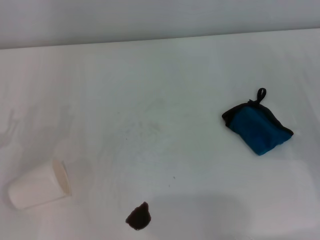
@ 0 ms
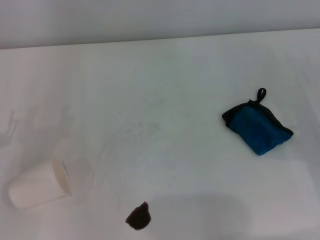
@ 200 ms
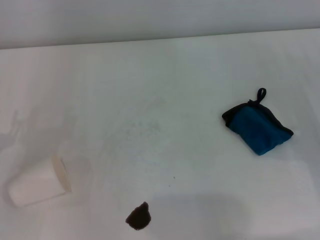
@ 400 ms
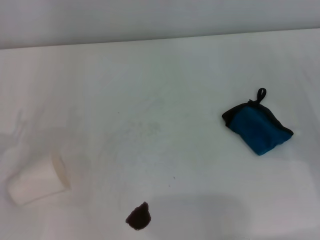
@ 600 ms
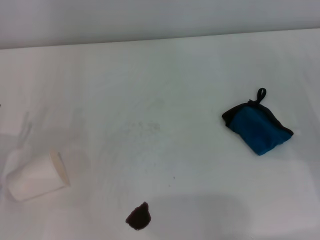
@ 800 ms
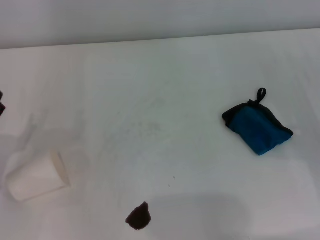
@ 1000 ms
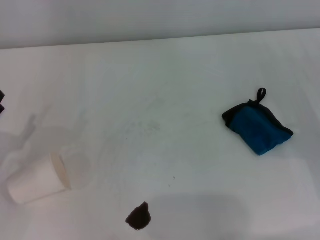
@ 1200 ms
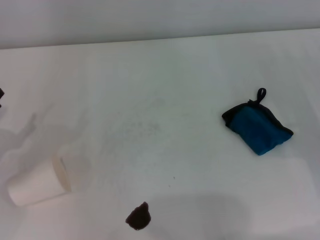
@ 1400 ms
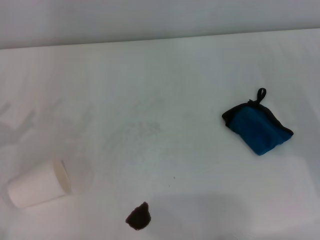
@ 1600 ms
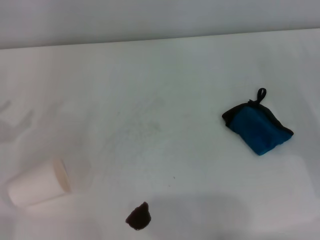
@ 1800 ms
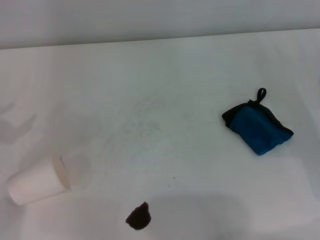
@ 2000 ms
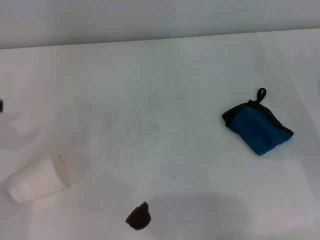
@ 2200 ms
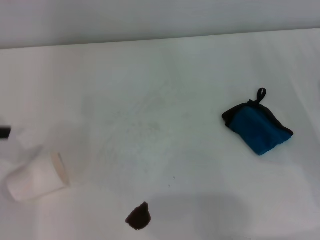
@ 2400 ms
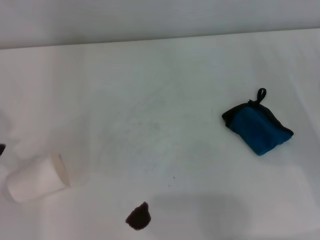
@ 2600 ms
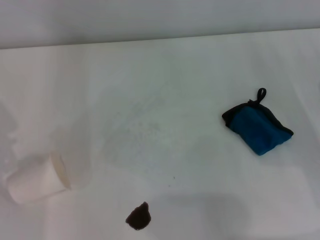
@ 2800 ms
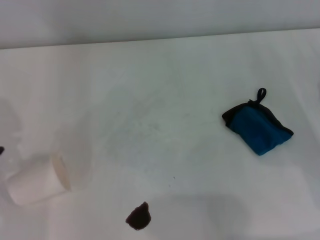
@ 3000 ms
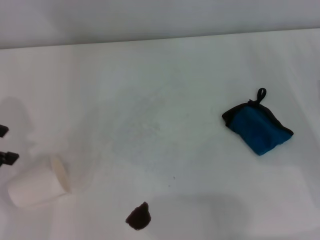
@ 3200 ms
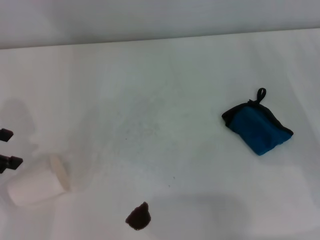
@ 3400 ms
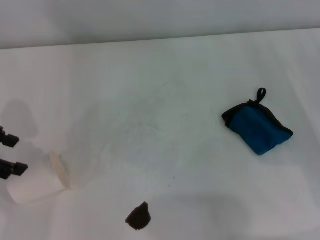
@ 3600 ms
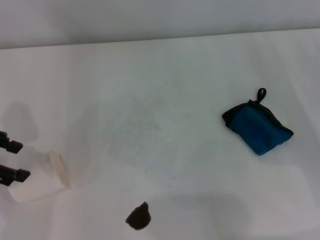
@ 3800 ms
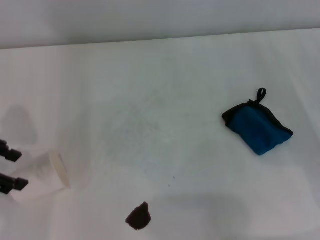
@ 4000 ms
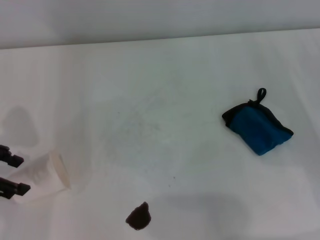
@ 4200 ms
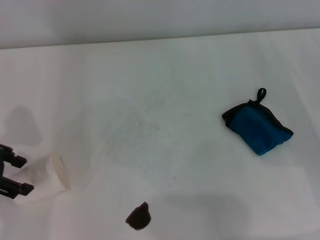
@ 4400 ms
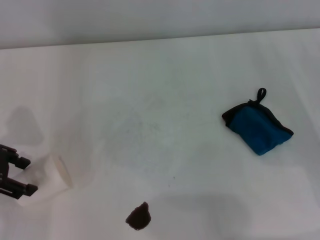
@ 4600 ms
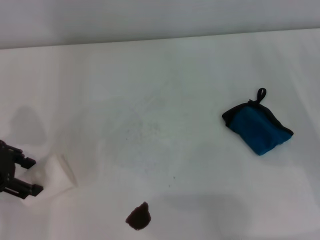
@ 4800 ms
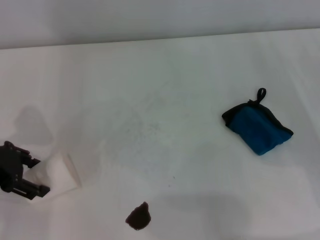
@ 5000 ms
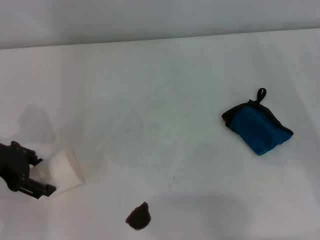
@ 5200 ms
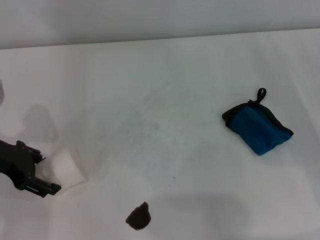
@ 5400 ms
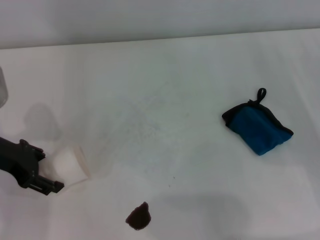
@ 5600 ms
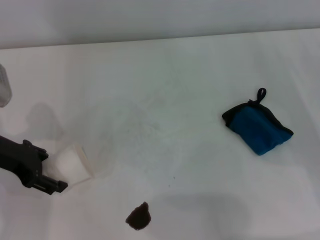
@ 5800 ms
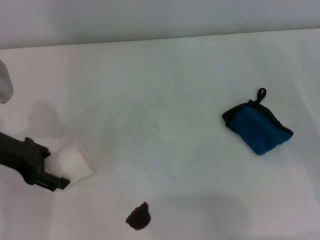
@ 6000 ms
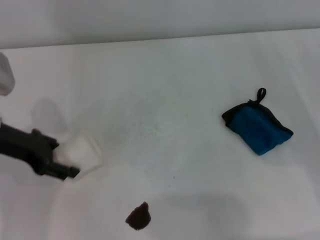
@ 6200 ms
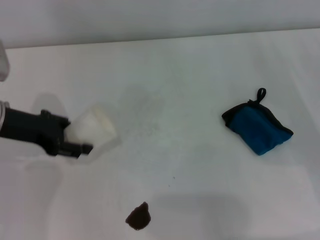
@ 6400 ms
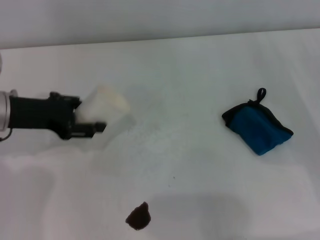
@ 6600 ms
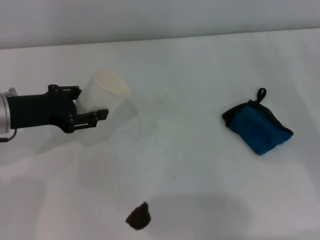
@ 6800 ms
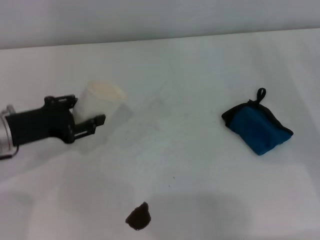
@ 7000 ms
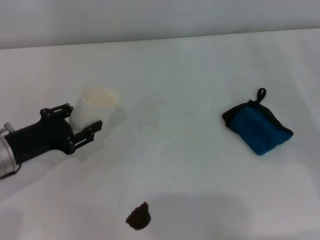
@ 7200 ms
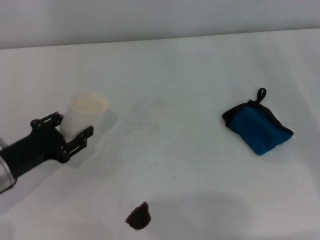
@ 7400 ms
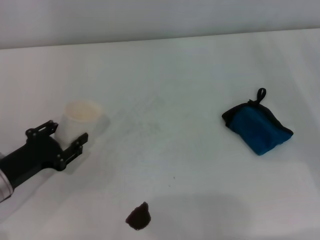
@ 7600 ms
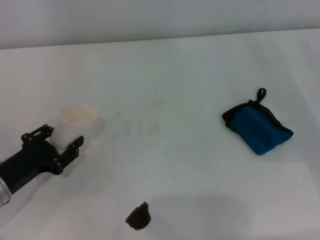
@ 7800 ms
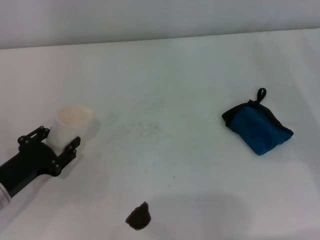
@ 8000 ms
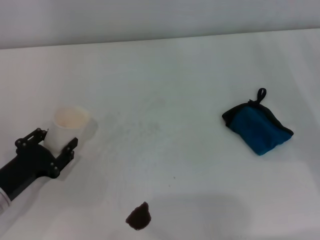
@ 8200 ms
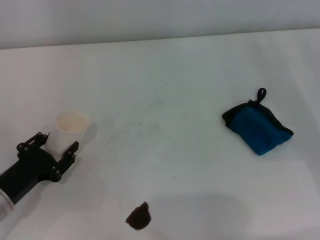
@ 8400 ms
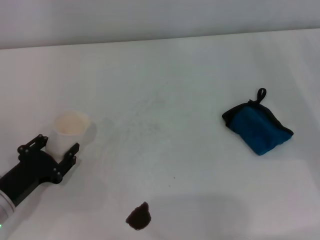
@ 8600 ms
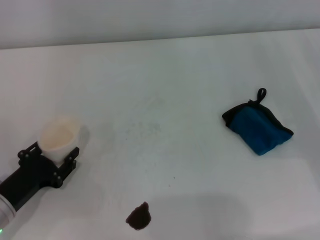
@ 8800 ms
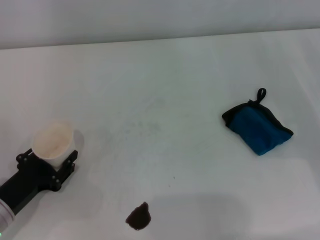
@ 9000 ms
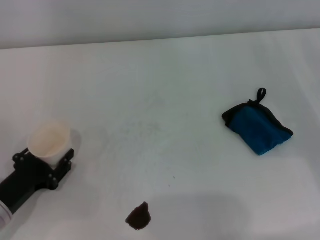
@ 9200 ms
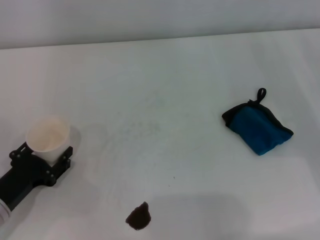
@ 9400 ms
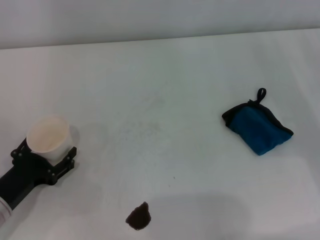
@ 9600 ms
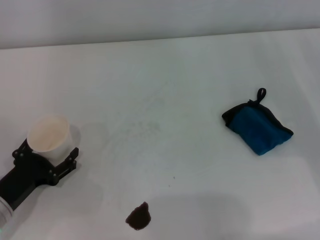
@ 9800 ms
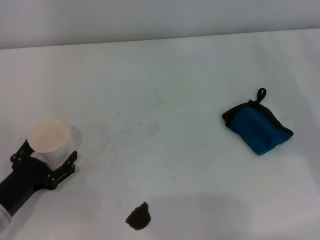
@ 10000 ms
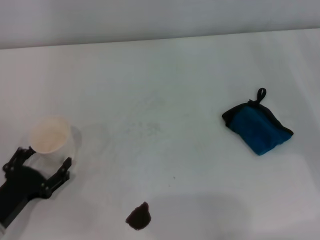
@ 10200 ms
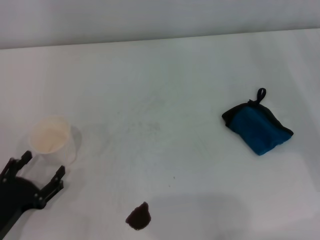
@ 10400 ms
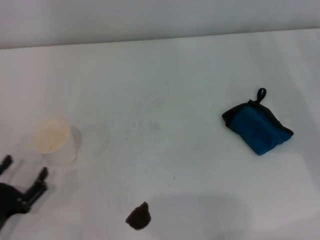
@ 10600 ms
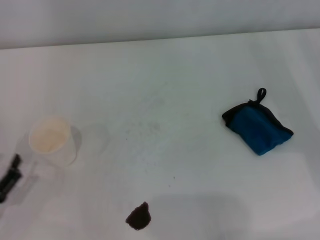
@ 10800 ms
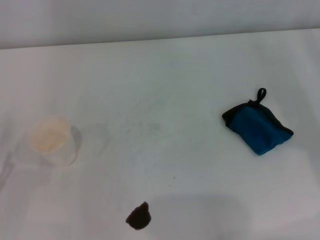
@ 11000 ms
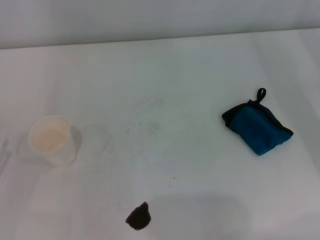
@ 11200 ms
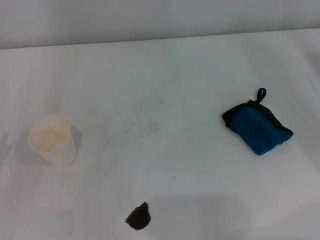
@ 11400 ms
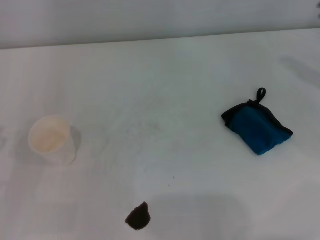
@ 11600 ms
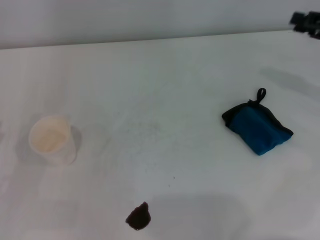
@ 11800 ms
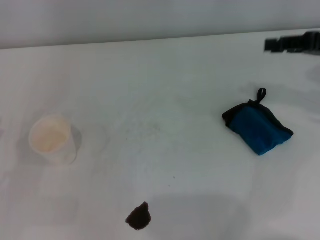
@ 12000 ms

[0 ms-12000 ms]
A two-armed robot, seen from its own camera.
Step, 0 ms to 5800 ms: Grasp the paper cup with the left gripper.
Step, 6000 ms to 9400 ms: Stand the paper cup upright with the left gripper.
3000 ms to 4400 ms: The left gripper is displaced downward by some 5 cm.
4400 ms to 6000 ms: The left gripper shifts by about 5 cm.
6000 ms to 7600 ms: The left gripper shifts roughly 15 cm downward and backward, and closes its fingers.
7600 ms to 9000 ms: The left gripper moves roughly 5 cm.
9000 ms to 10400 ms: The left gripper opens its fingers.
10400 ms to 12000 ms: The left gripper goes approximately 10 cm to the left and upward; the right gripper moves upward and forward, about 15 cm.

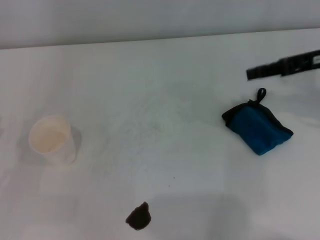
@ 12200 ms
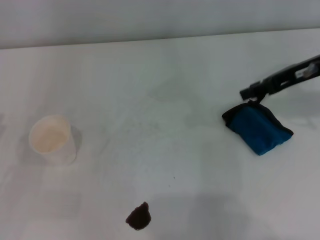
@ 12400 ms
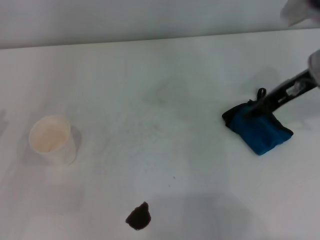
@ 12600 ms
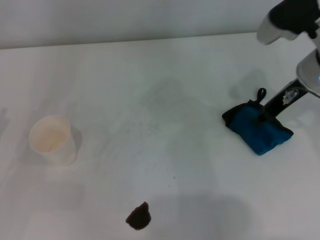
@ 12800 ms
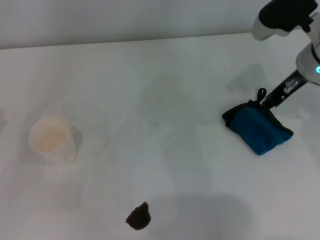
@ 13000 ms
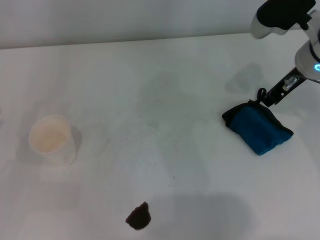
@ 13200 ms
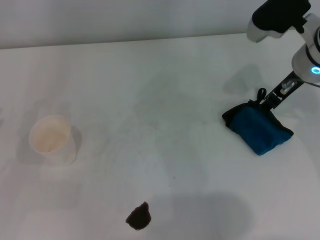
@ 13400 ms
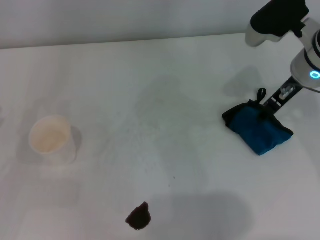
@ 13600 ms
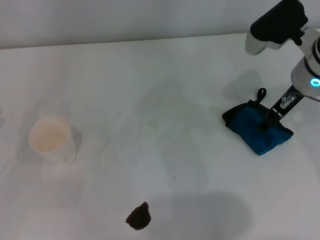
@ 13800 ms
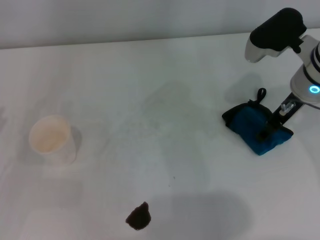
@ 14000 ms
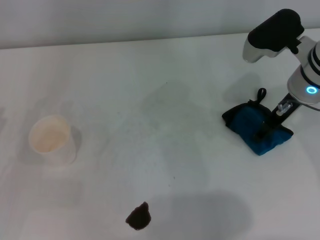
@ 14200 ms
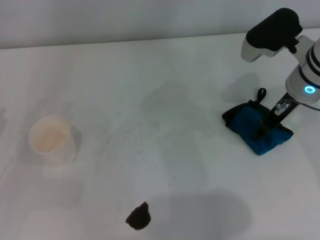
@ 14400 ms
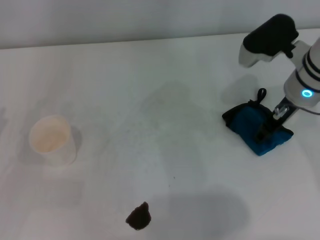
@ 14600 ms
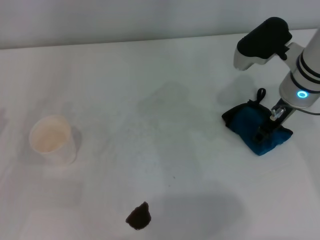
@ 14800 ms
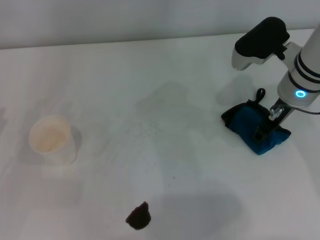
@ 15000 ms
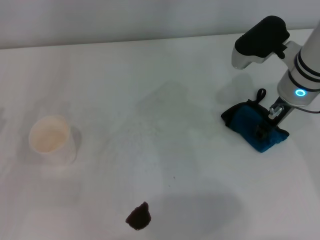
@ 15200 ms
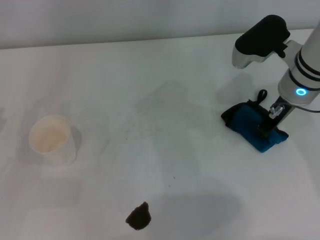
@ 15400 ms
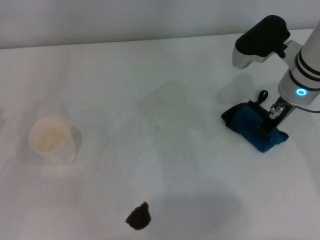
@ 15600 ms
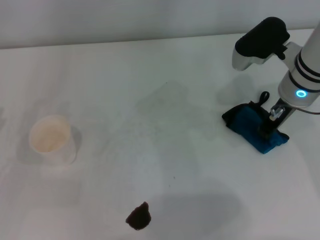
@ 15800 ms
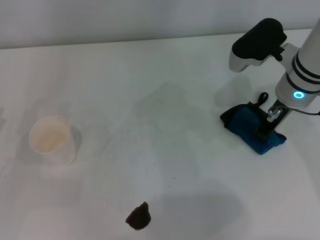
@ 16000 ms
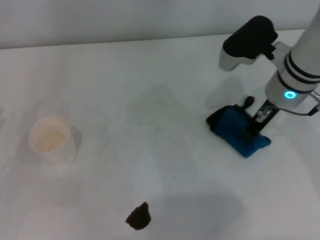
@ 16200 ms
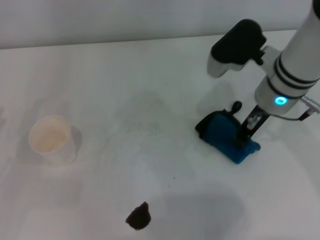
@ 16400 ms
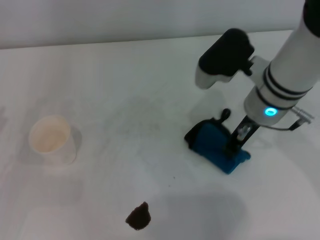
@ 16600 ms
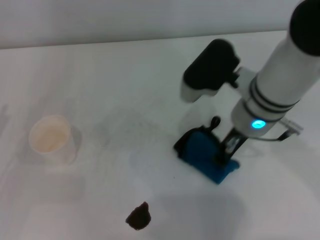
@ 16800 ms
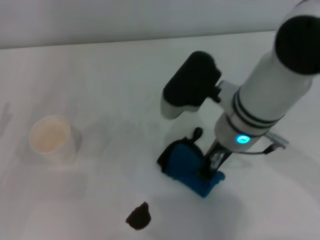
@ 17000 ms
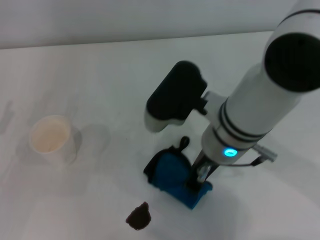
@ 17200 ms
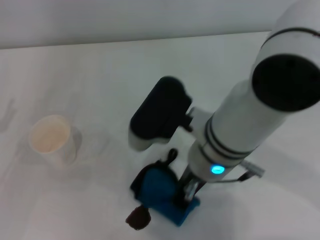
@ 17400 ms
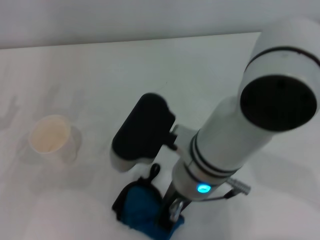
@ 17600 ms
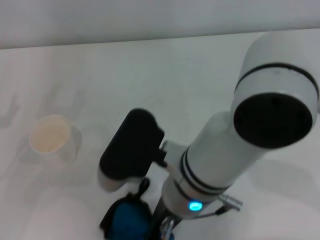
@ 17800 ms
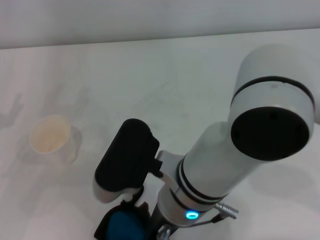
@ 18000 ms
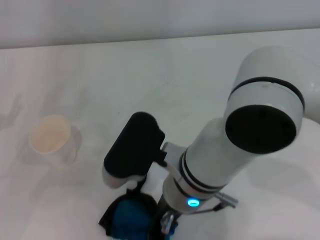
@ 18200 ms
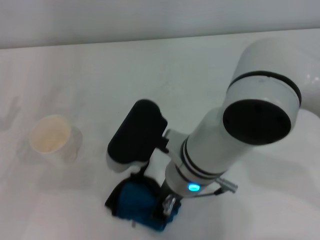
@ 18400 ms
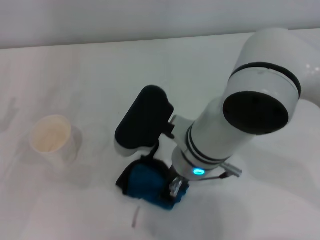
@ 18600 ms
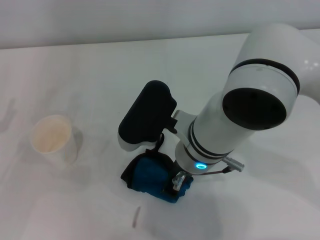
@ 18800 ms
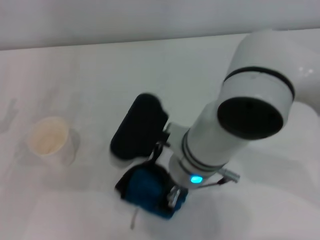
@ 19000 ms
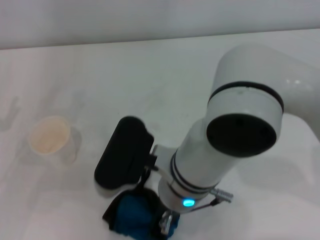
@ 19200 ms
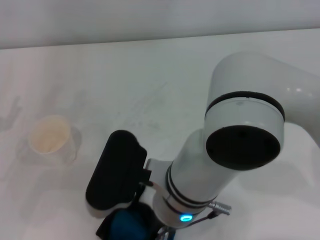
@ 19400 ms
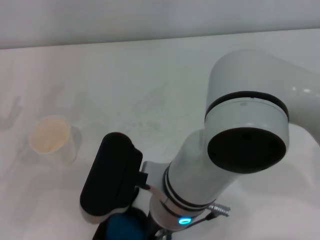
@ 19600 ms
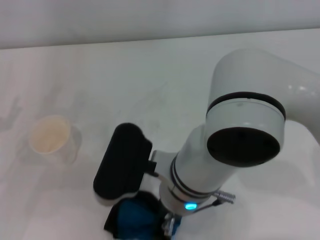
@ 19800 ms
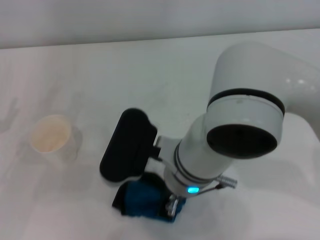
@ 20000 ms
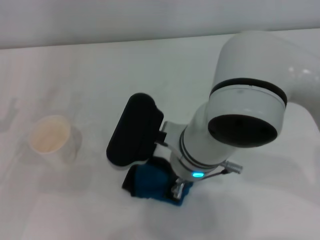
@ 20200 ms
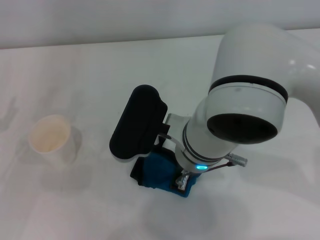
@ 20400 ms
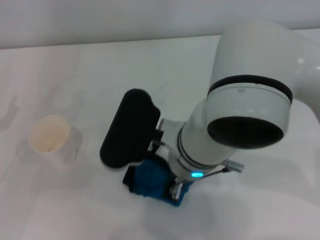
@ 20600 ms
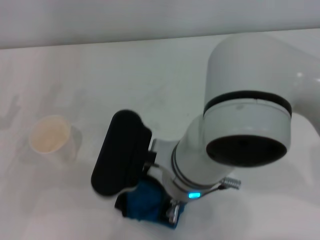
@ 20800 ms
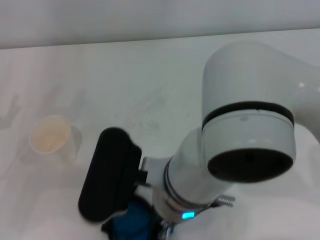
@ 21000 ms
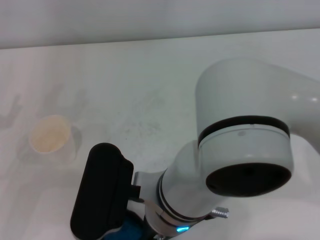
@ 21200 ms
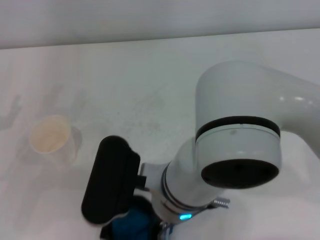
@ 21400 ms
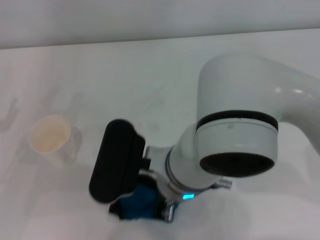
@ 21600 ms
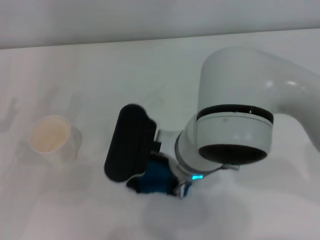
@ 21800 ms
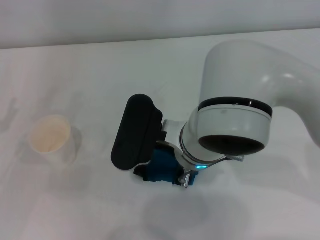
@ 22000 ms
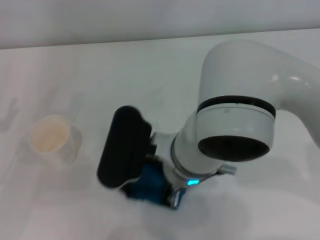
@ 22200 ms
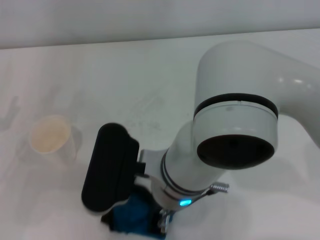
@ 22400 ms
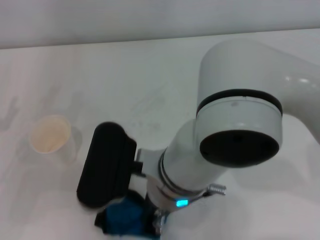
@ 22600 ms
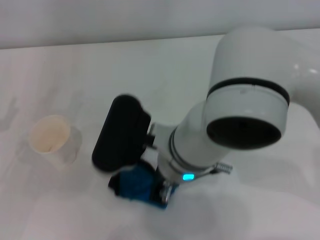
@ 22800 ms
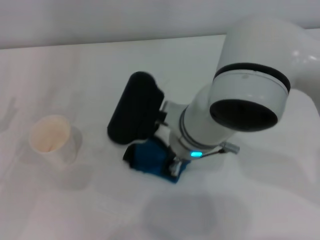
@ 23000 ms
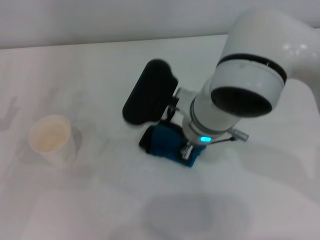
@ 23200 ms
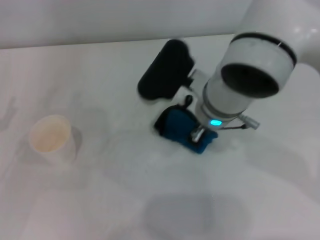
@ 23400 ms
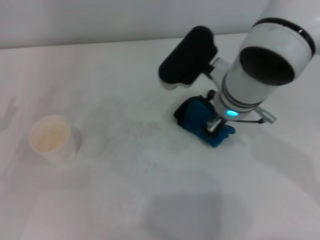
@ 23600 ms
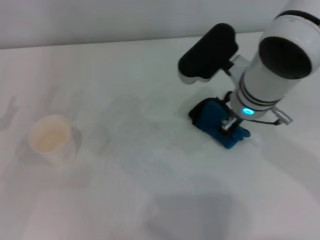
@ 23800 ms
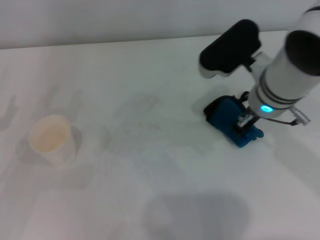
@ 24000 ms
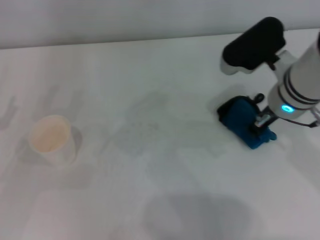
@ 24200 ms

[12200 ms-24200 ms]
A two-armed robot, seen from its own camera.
Step, 12200 ms to 15800 ms: Grasp the rag with the right gripper.
12200 ms to 13800 ms: The right gripper travels to the left by approximately 10 cm, and opens.
13800 ms to 15200 ms: The right gripper closes its fingers.
15200 ms to 16600 ms: The right gripper goes some 5 cm to the left, and closes.
16600 ms to 18200 ms: The right gripper goes some 15 cm to the left and backward.
18200 ms to 19800 ms: The grippers move only a little.
22600 ms to 24200 ms: The right gripper is displaced to the right and forward by some 20 cm.
